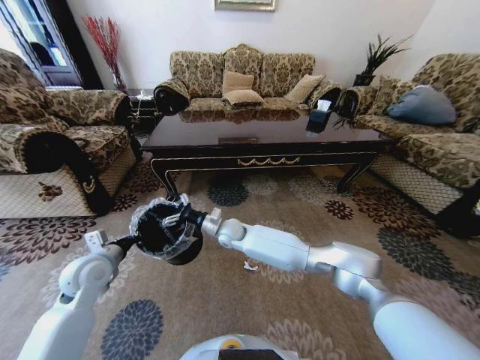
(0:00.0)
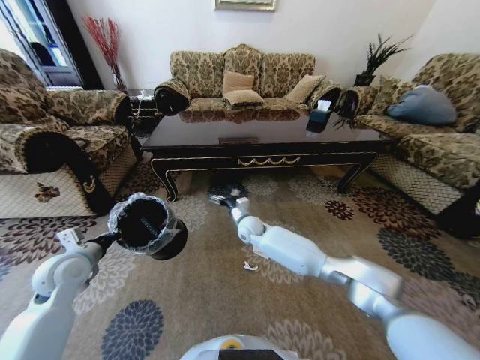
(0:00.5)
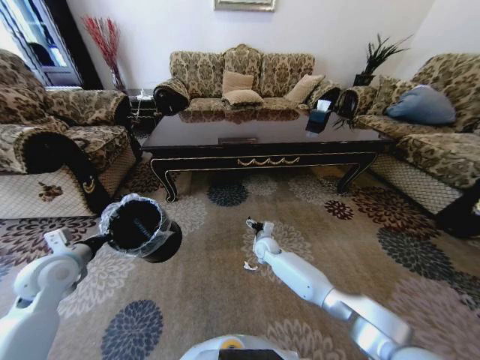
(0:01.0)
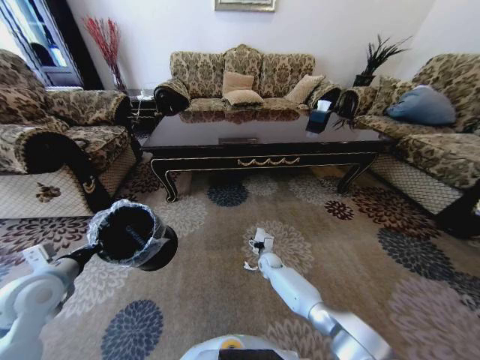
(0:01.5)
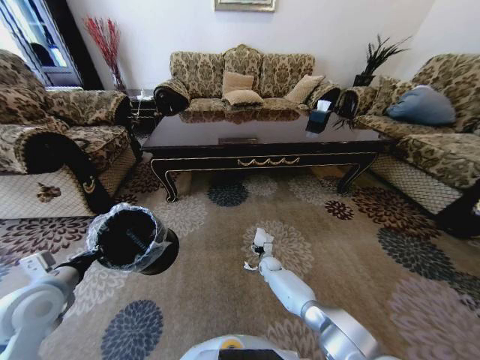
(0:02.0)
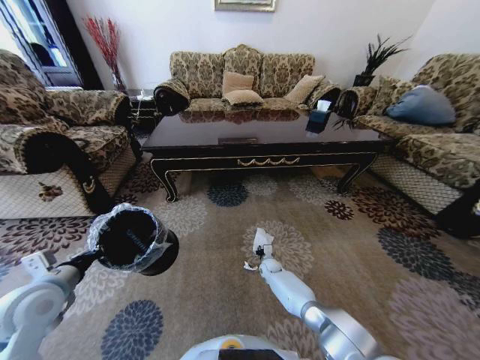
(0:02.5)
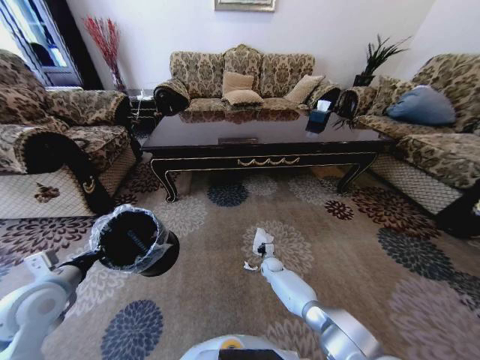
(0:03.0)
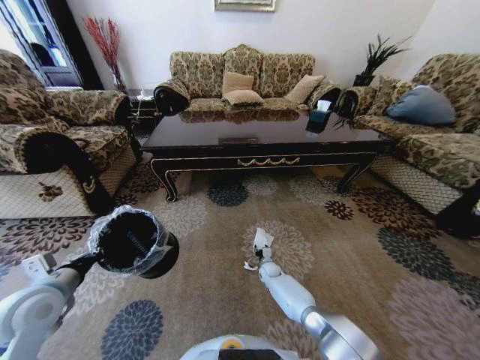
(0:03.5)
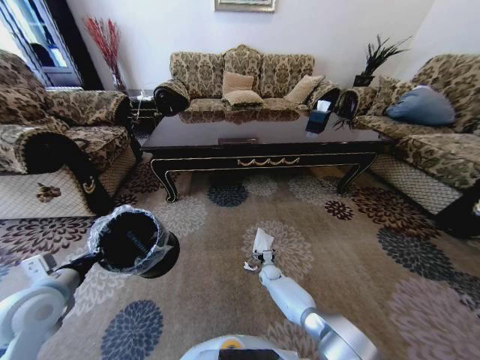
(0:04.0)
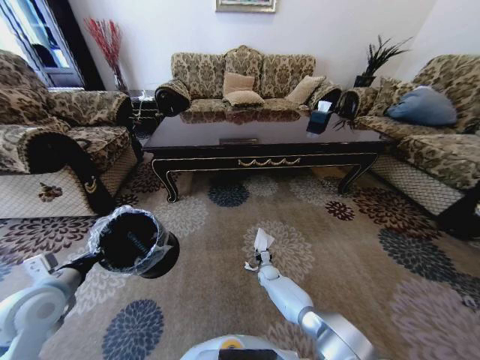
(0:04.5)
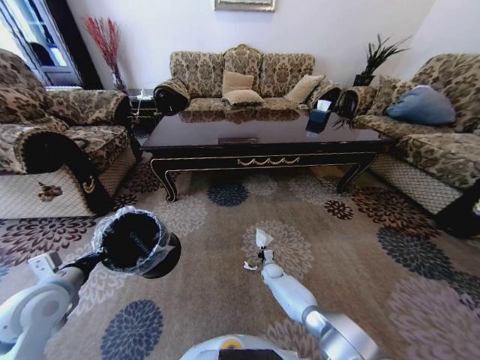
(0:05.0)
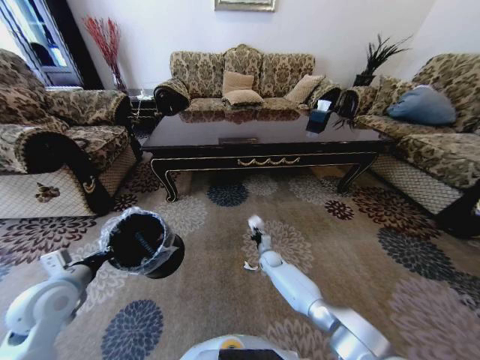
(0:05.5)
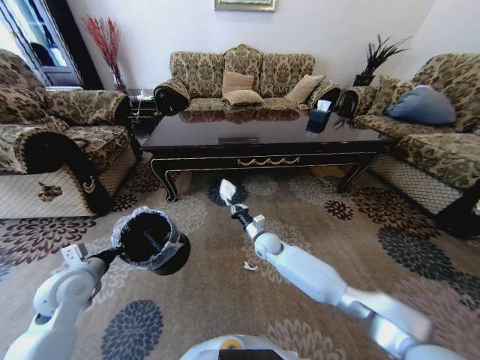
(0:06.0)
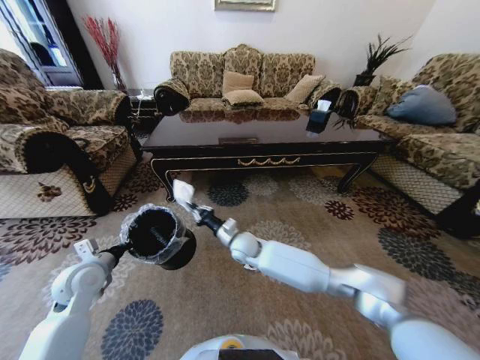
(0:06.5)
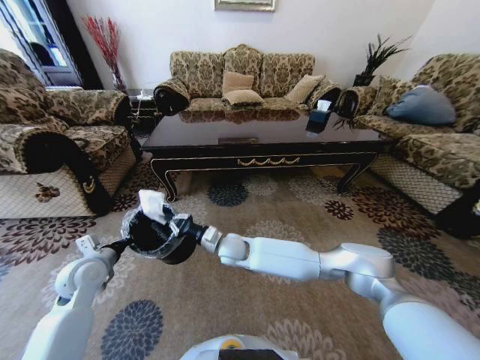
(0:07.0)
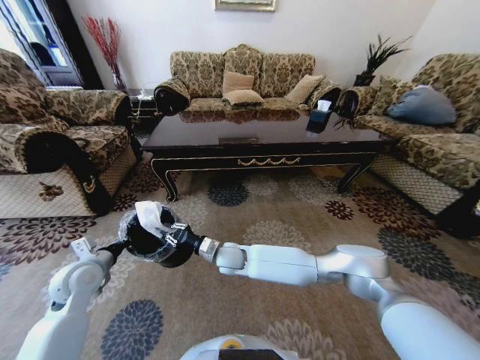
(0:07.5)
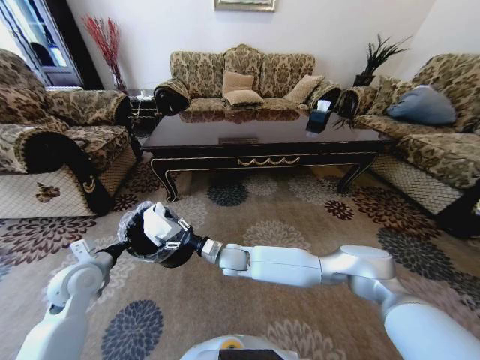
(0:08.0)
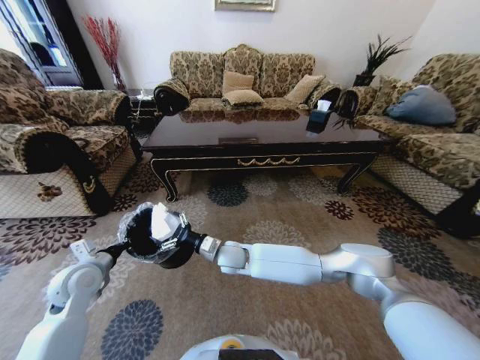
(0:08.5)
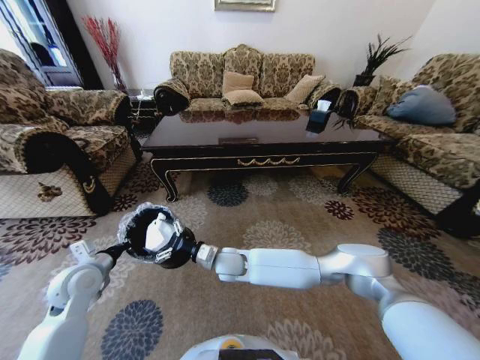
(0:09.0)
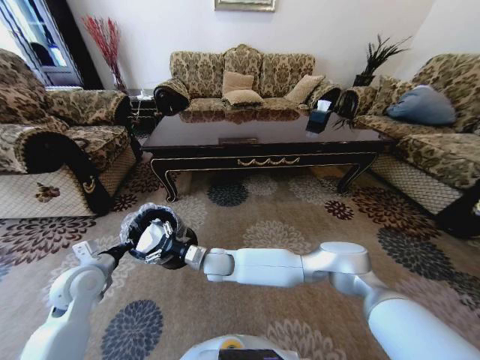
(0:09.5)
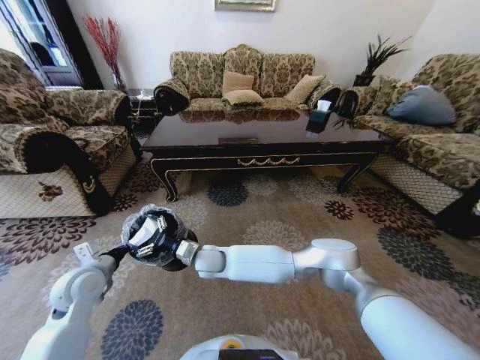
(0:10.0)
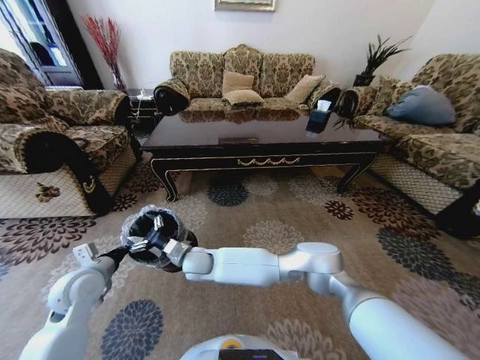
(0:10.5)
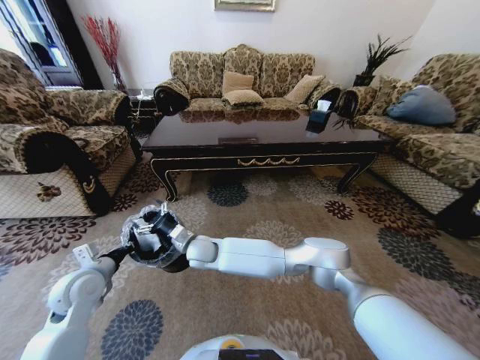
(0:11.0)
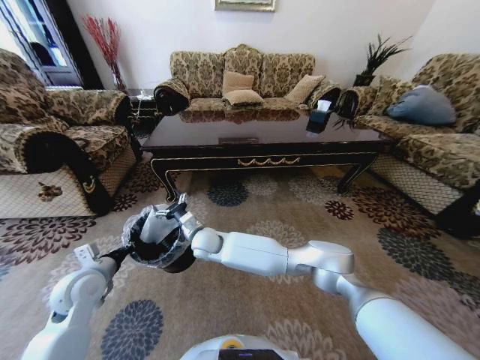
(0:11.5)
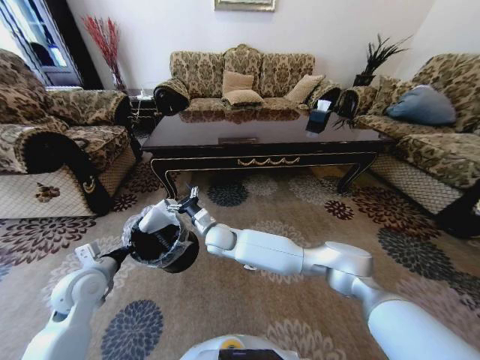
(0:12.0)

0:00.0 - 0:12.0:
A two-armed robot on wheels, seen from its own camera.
Task of the whole recording: Move to the front of the table and pick up the trash from the floor, then place it into the trash bin.
0:00.0 - 0:02.0: The left gripper shifts some 10 cm backward, while the right gripper shifts some 30 cm downward and to the right.
0:02.0 - 0:04.0: The right gripper closes, then opens again.
0:04.0 - 0:06.0: The left gripper goes some 5 cm forward. Meanwhile the right gripper heads upward, covering about 20 cm, and closes up.
0:06.0 - 0:08.0: The right gripper travels to the left and backward by roughly 15 cm, and opens up.
0:08.0 - 0:10.0: The right gripper travels to the left by about 10 cm.
0:10.0 - 0:12.0: The right gripper is displaced forward by about 5 cm.

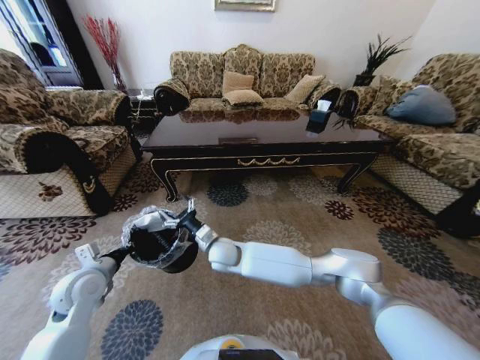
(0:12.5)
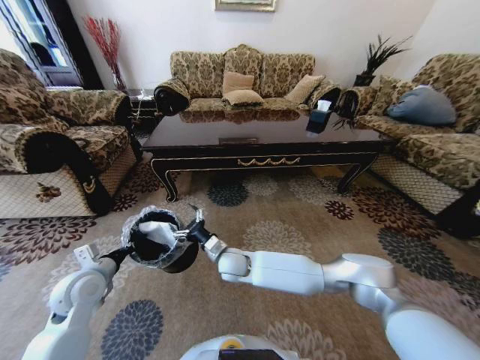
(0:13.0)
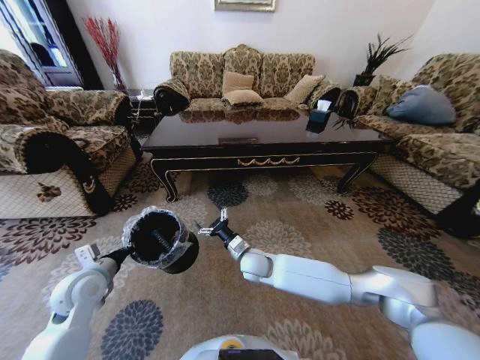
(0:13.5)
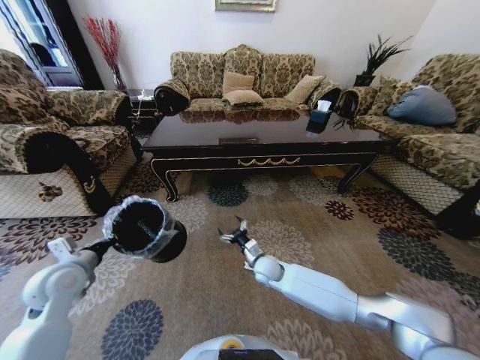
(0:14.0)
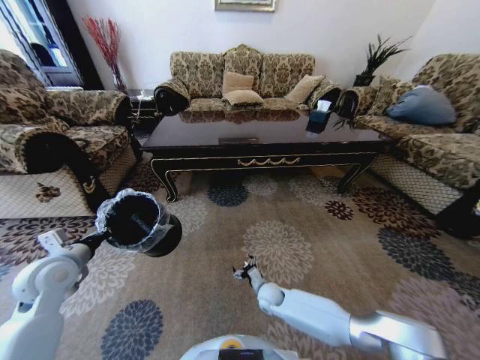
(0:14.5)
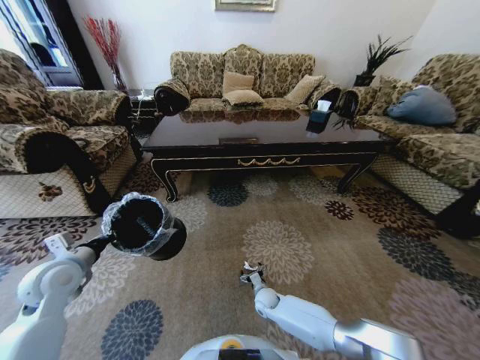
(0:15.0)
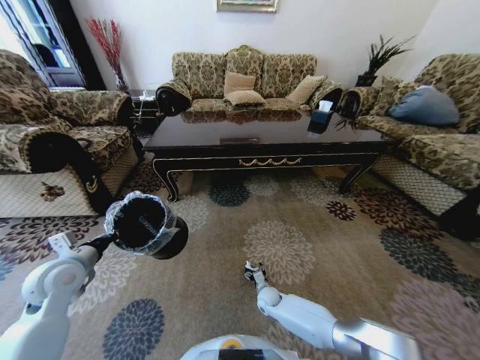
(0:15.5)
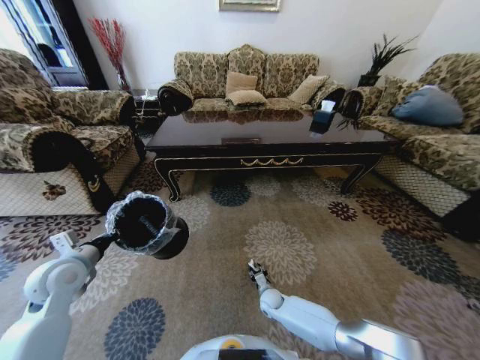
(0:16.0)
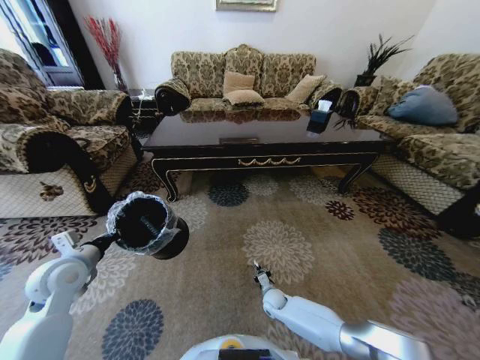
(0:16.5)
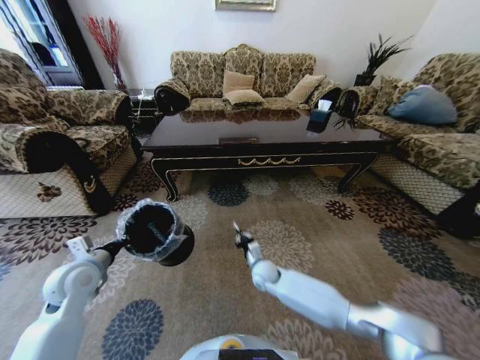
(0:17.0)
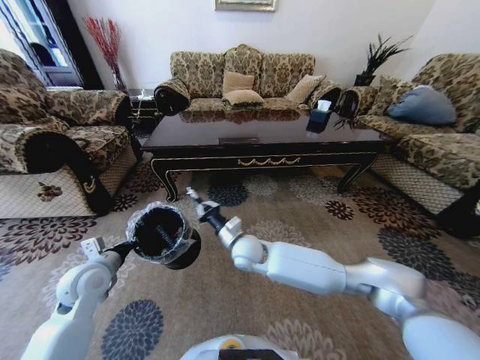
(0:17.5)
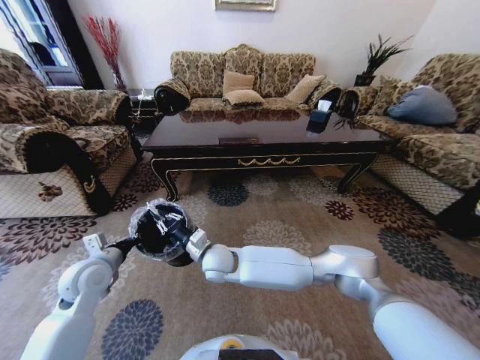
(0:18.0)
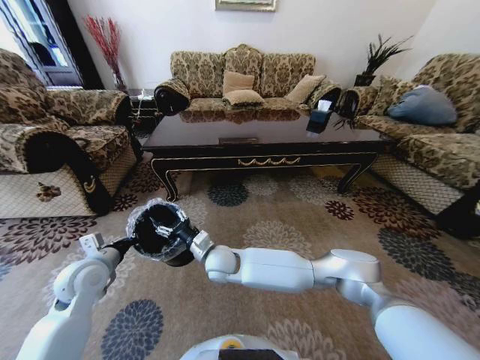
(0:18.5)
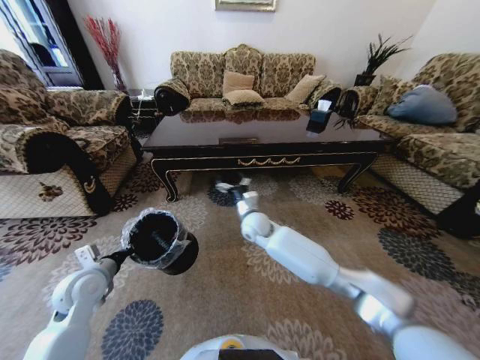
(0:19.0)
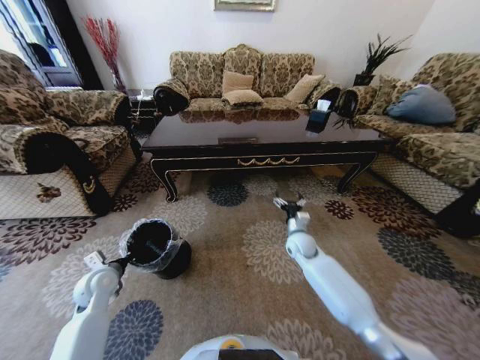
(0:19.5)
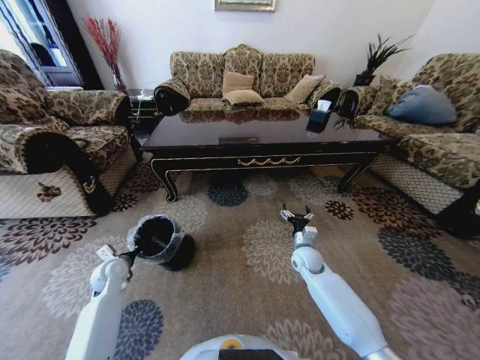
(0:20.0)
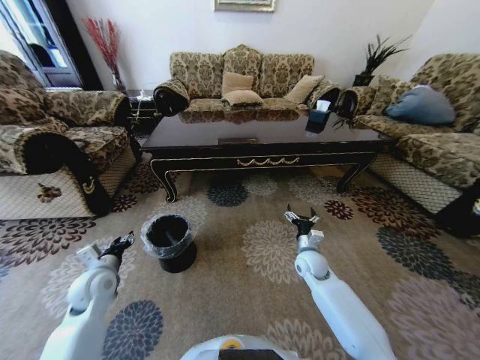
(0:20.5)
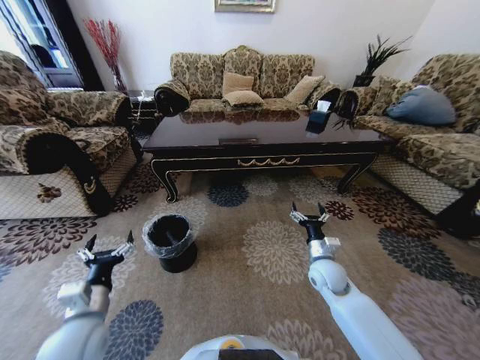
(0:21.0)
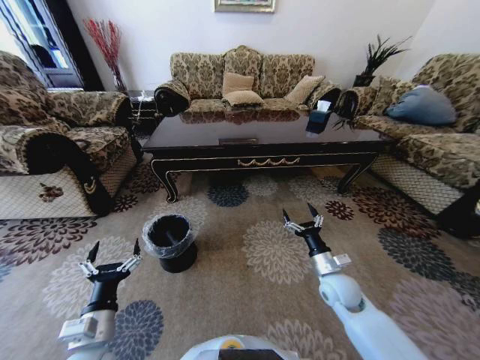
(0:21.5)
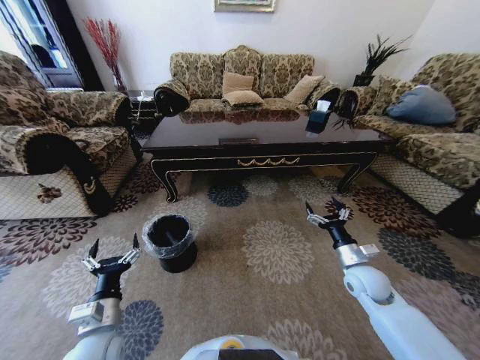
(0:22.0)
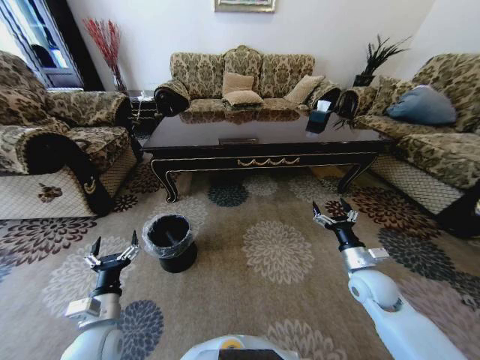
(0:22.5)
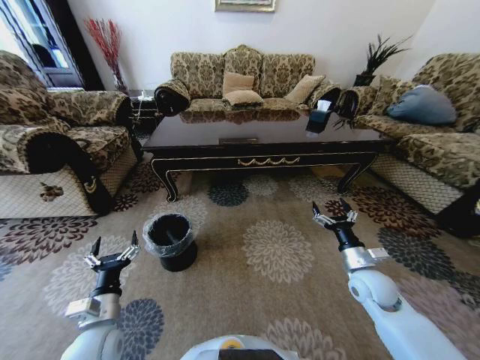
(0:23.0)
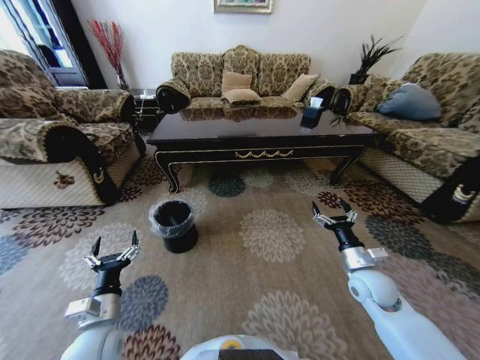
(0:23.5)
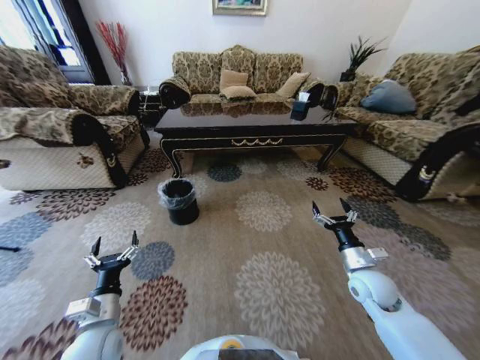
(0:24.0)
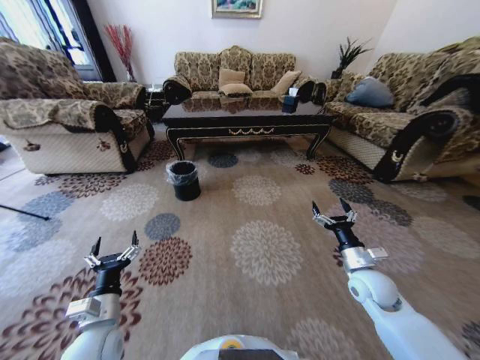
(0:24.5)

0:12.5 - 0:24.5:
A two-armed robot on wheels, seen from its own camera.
Task of the whole recording: Move to the front of the table and pick up the trash from the floor, then place it into the trash bin.
0:12.5 - 0:14.5: The left gripper ends up some 5 cm from where it was, while the right gripper travels downward and to the right by some 30 cm.
0:14.5 - 0:16.5: The right gripper travels downward by some 5 cm, and closes its fingers.
0:16.5 - 0:18.5: The right gripper is displaced upward and to the left by roughly 35 cm, and opens its fingers.
0:18.5 - 0:20.5: The left gripper goes about 5 cm downward, and opens up. The right gripper goes about 30 cm to the right, and opens.
0:20.5 - 0:22.5: The right gripper goes roughly 15 cm to the right, backward and upward; the left gripper travels backward and to the right by approximately 15 cm, and opens up.

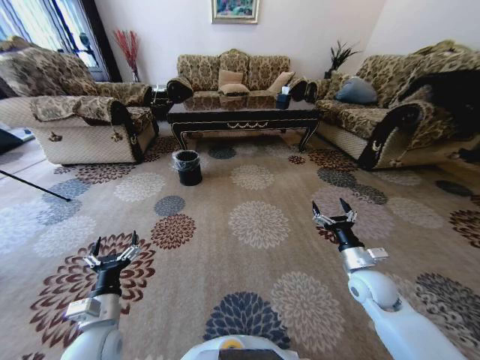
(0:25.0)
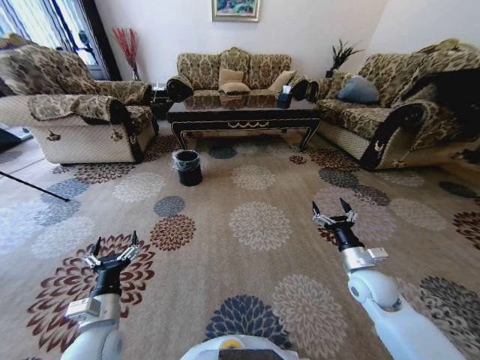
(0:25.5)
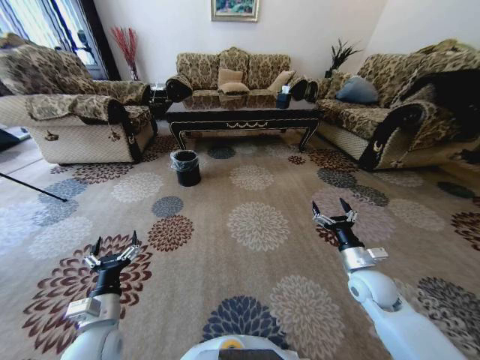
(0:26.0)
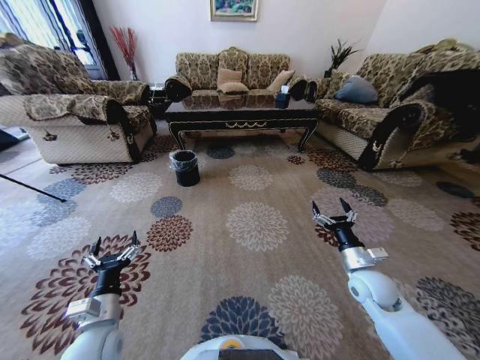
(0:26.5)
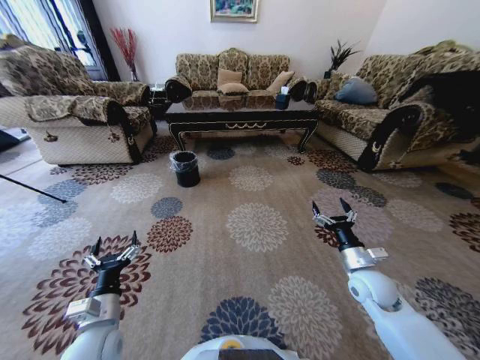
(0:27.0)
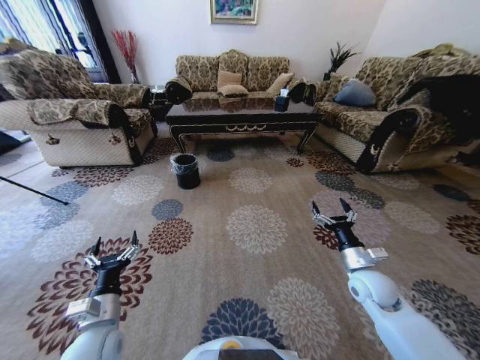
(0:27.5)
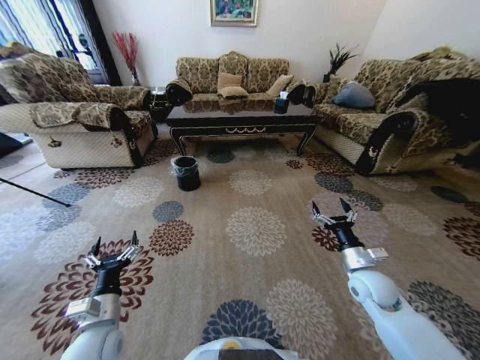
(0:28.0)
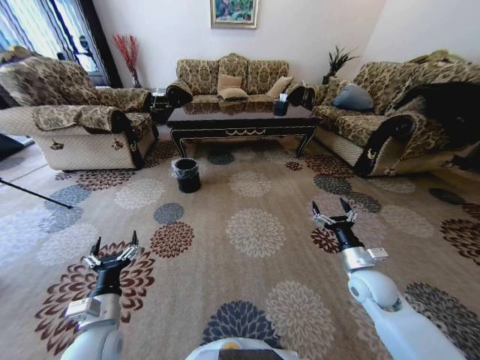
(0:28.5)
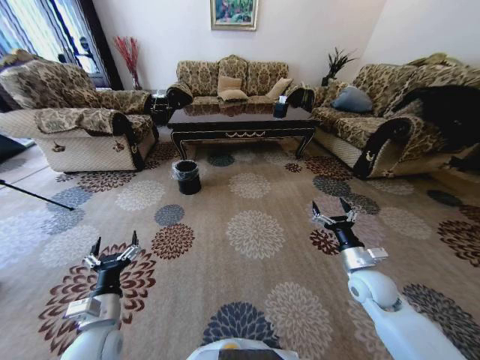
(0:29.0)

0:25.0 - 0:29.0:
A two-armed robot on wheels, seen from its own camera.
Task of the whole recording: Move to the front of the table and pick up the trash from the floor, then place it into the trash bin.
0:25.0 - 0:27.0: Both grippers stay put.
